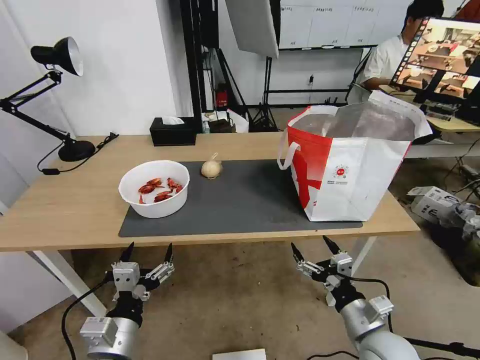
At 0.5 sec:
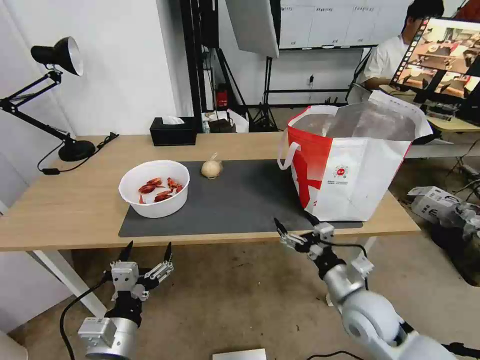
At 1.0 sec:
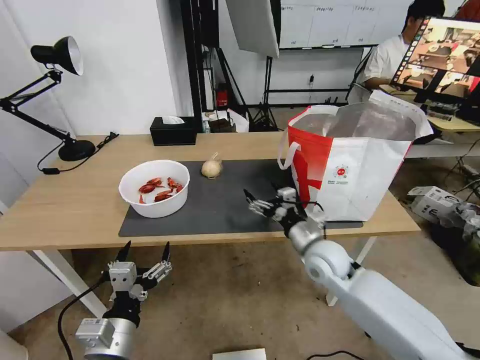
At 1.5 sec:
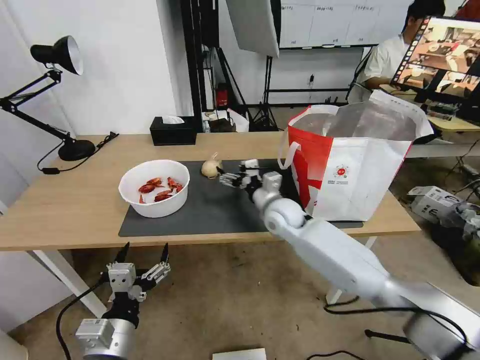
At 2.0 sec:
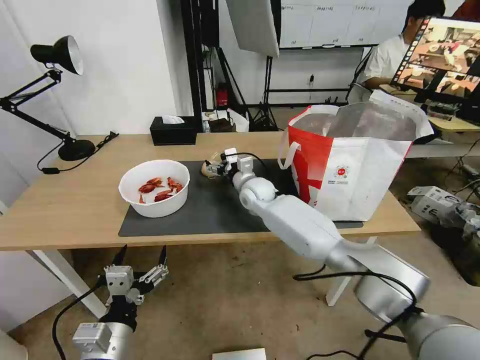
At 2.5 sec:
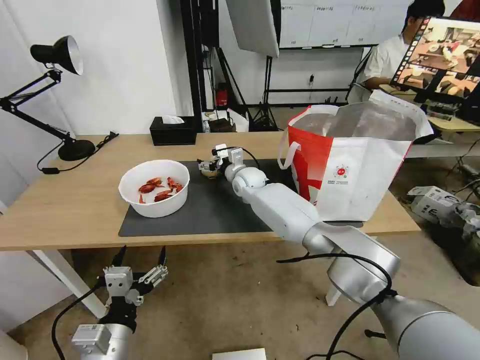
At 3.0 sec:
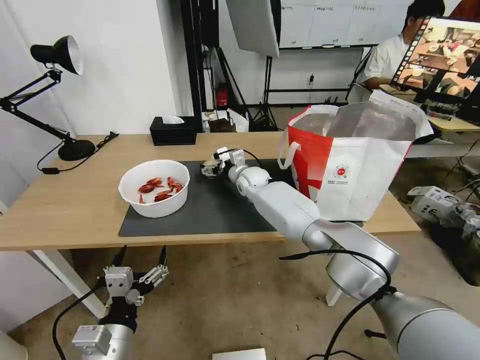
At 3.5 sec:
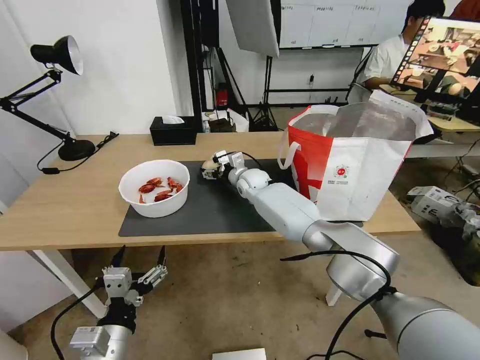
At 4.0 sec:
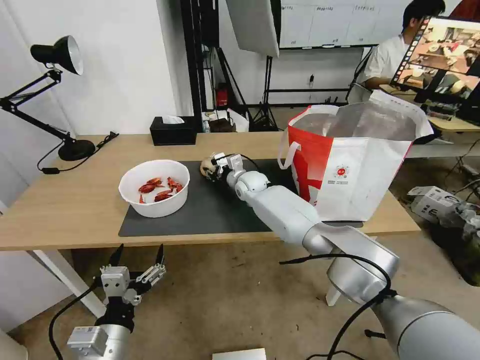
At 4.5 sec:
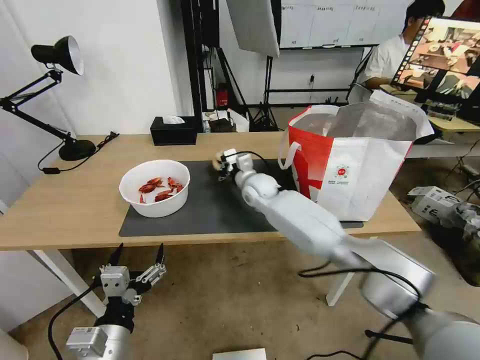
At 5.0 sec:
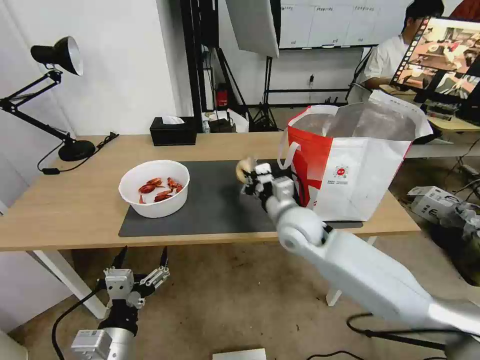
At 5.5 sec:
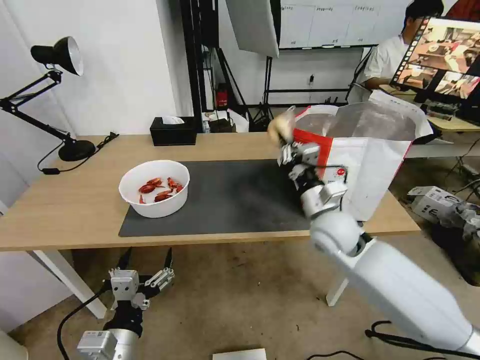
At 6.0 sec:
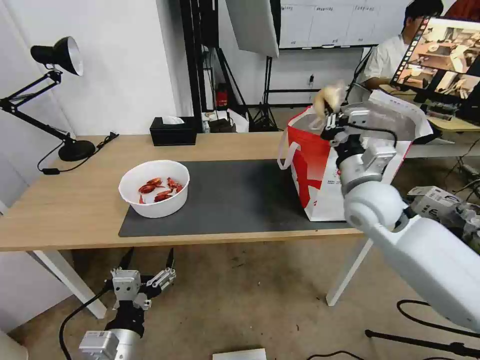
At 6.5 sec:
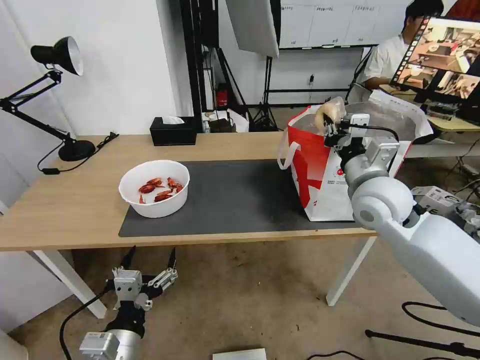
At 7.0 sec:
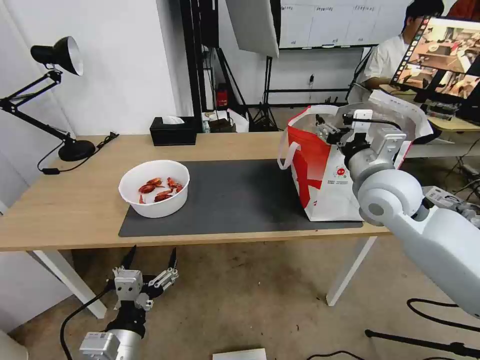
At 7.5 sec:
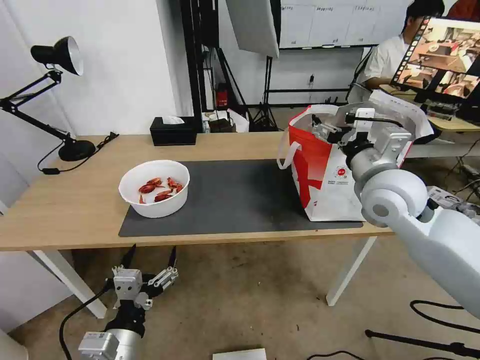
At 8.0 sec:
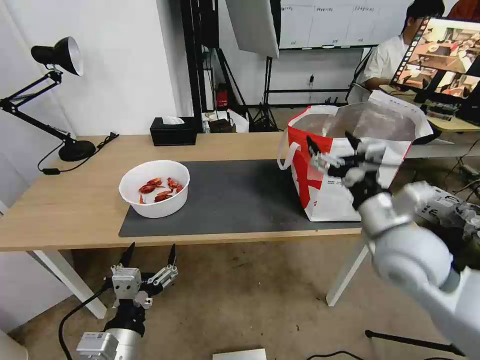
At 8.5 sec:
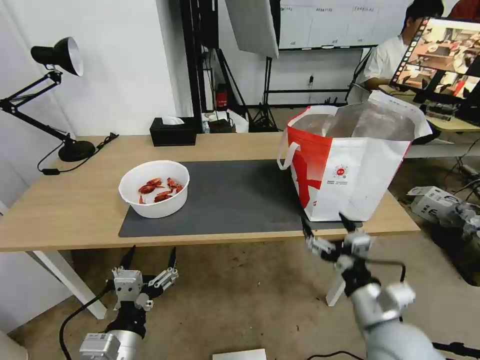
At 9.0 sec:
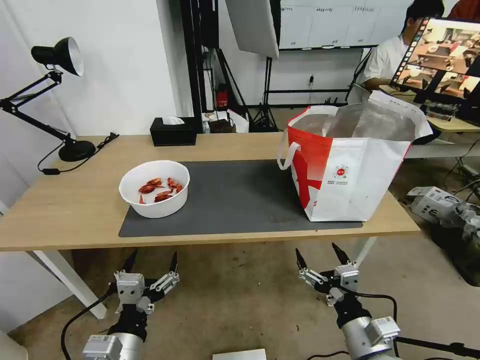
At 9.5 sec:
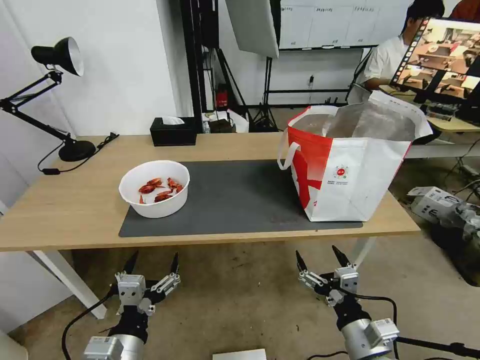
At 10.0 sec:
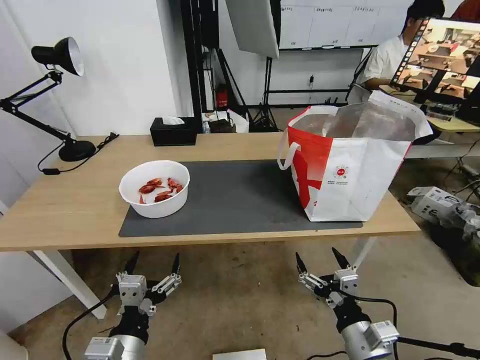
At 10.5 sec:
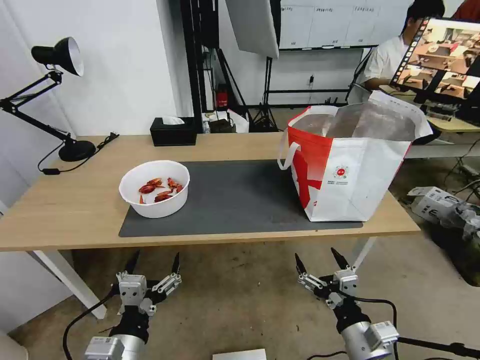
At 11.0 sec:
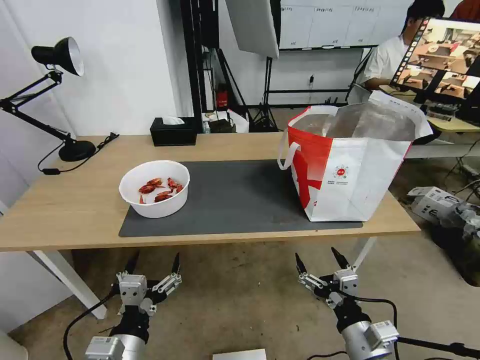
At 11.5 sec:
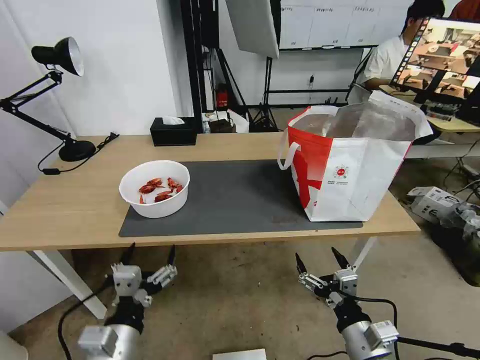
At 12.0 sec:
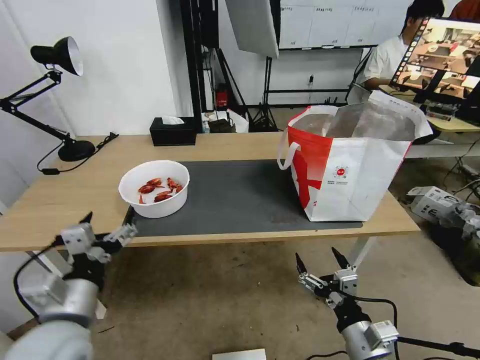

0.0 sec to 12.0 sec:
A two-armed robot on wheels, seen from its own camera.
Task of the whole recording: Pick up the trash from the table and place it into the takeout bag.
0.0 sec to 2.0 sec: The right gripper heads forward and to the left, covering roughly 40 cm.
2.0 sec to 4.0 sec: The right gripper closes.
4.0 sec to 6.0 sec: The right gripper travels to the right, backward and upward by roughly 35 cm.
6.0 sec to 8.0 sec: The right gripper is displaced backward by about 10 cm, and opens its fingers.
8.0 sec to 10.0 sec: The right gripper is displaced downward and backward by some 25 cm.
10.0 sec to 12.0 sec: The left gripper heads upward, to the left and forward, covering some 10 cm.

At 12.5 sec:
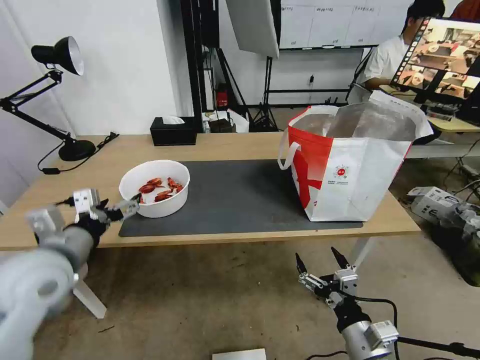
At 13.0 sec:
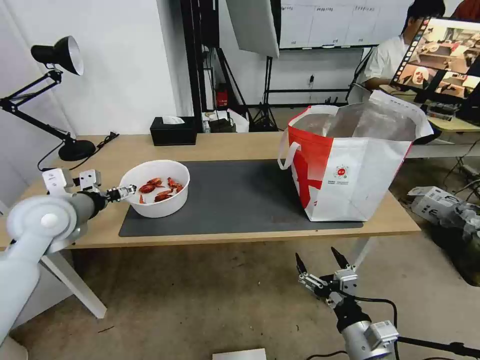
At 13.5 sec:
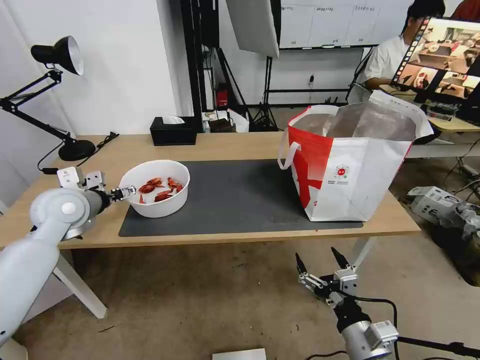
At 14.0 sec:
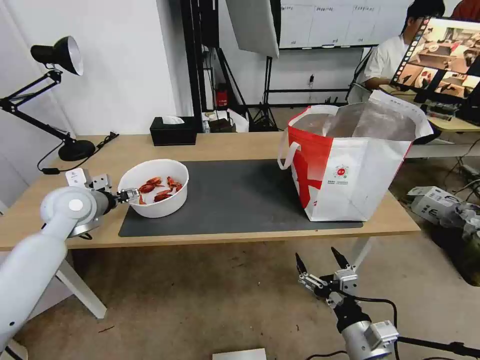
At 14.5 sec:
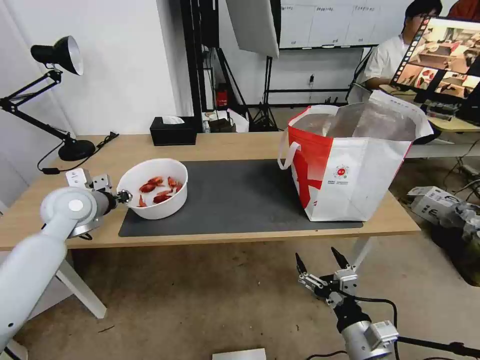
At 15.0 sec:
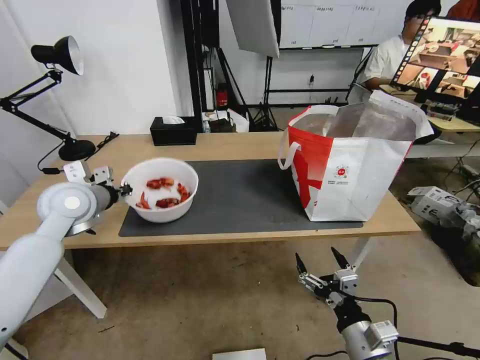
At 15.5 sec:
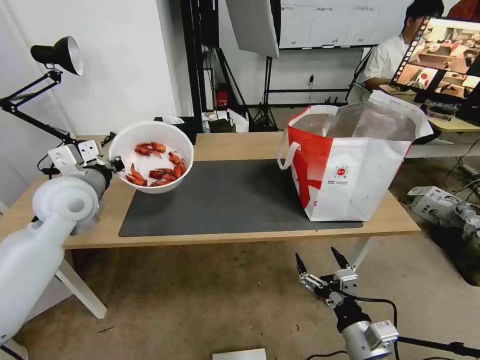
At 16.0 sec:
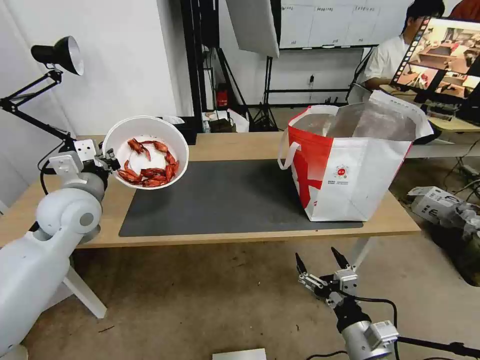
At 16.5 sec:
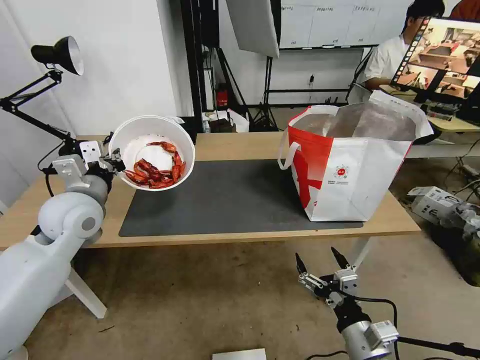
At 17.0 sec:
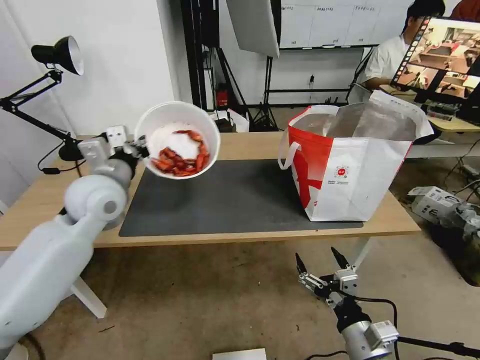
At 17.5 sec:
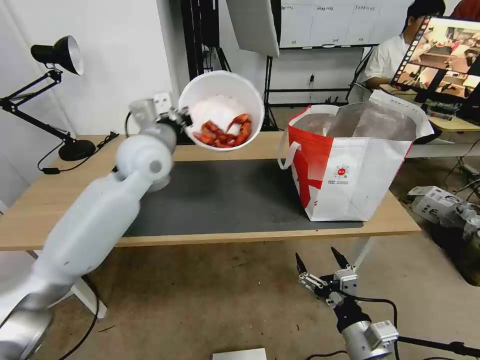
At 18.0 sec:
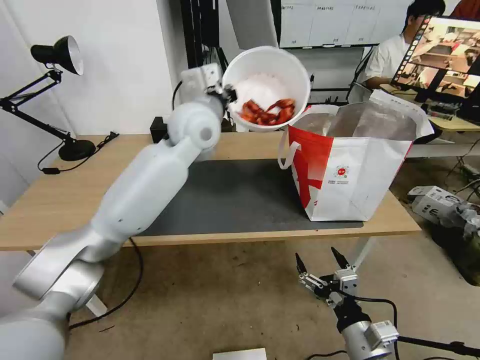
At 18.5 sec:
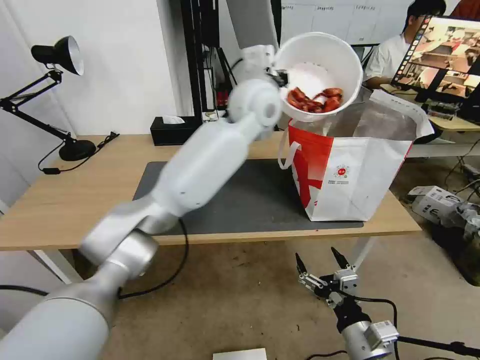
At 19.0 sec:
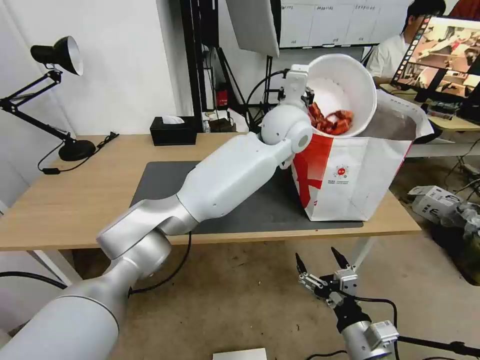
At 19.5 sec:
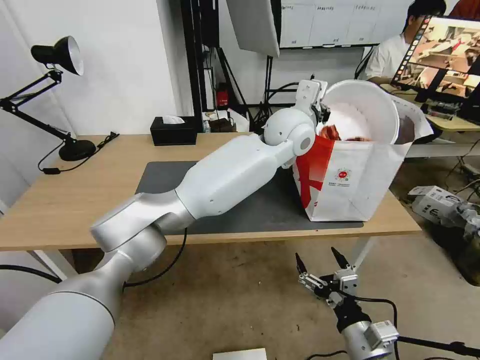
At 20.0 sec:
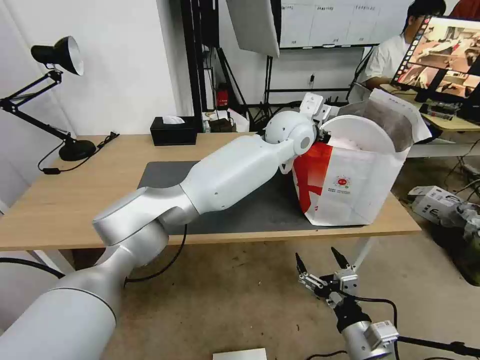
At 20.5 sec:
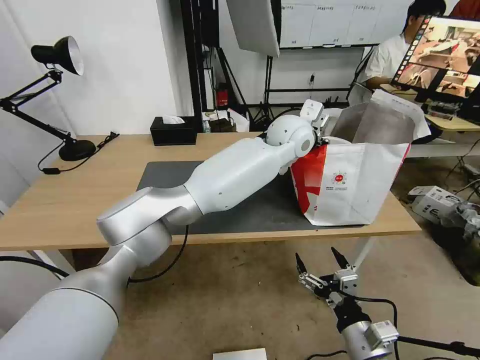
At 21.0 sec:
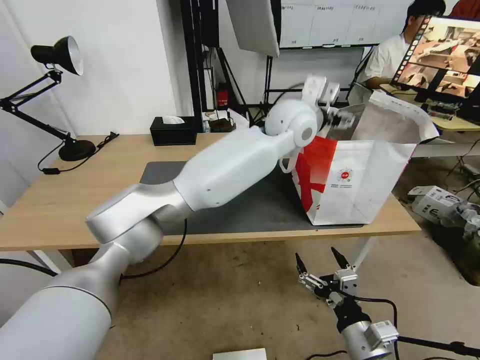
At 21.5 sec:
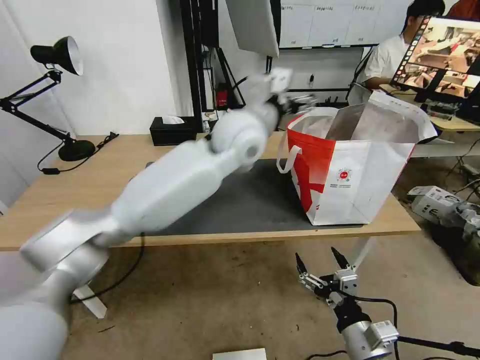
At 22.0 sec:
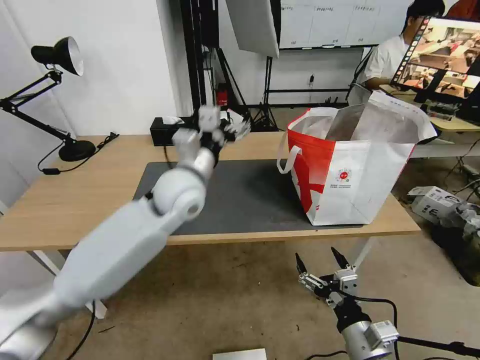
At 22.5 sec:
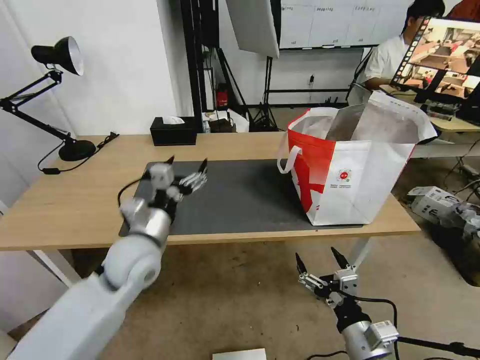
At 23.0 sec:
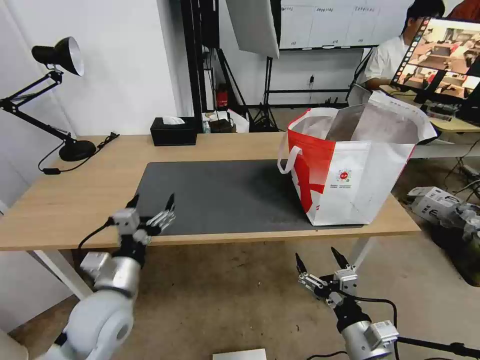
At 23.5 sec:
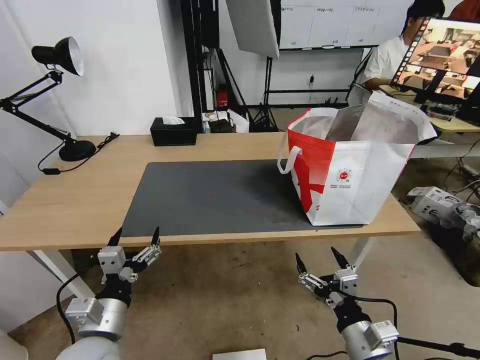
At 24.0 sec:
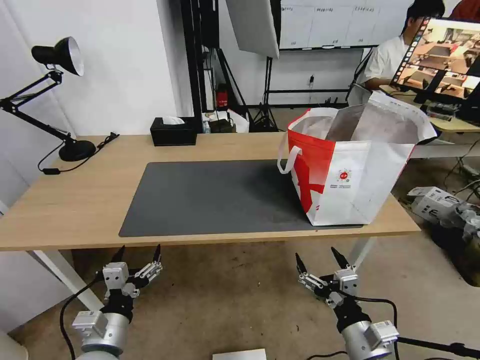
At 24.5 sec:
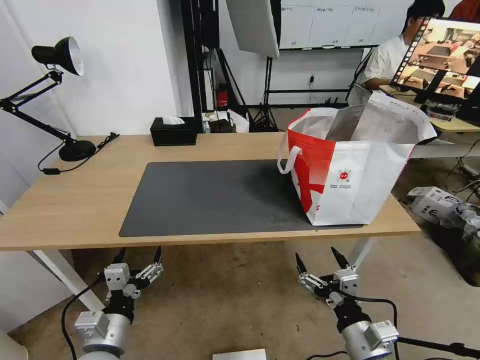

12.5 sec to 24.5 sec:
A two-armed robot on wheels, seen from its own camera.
Task of the whole recording: Pick up the trash from the table and place it into the takeout bag.
12.5 sec to 14.5 sec: The left gripper moves forward, approximately 15 cm, and closes up.
14.5 sec to 16.5 sec: The left gripper shifts by about 5 cm.
16.5 sec to 18.5 sec: The left gripper travels to the right, upward and forward by roughly 40 cm.
18.5 sec to 20.5 sec: The left gripper heads to the right and downward, covering some 10 cm, and opens its fingers.
20.5 sec to 22.5 sec: The left gripper shifts about 40 cm to the left, backward and downward, and opens up.
22.5 sec to 24.5 sec: The left gripper travels backward and downward by approximately 20 cm.
